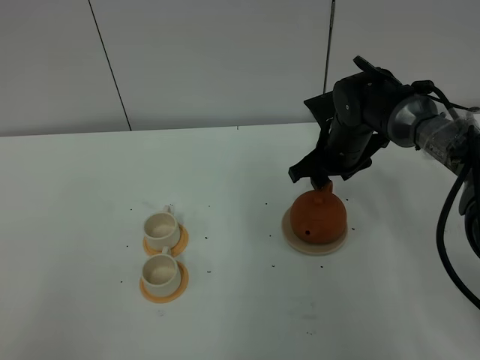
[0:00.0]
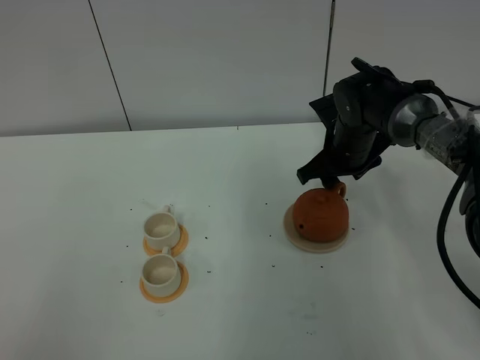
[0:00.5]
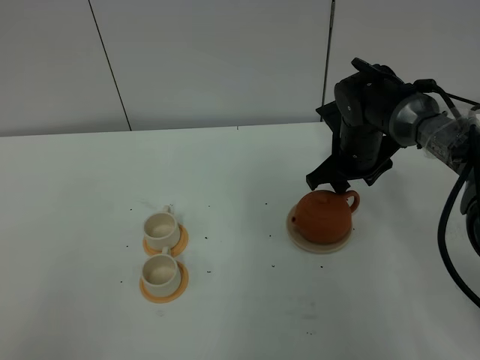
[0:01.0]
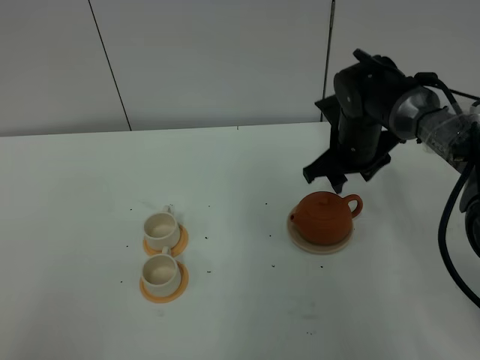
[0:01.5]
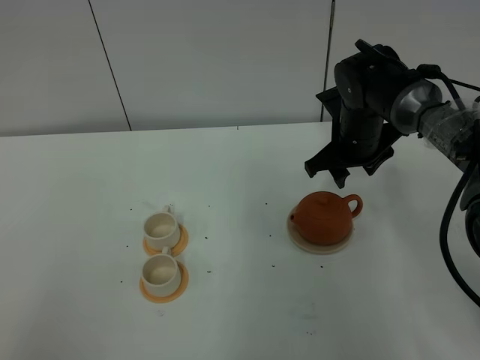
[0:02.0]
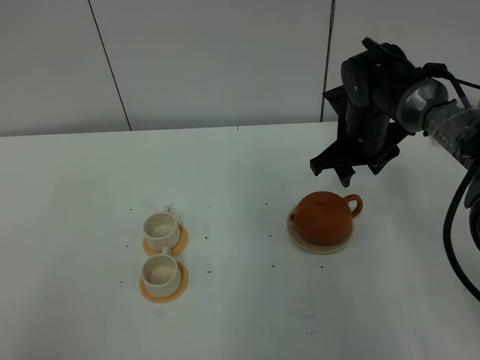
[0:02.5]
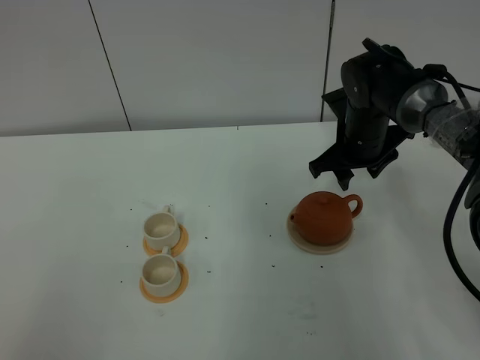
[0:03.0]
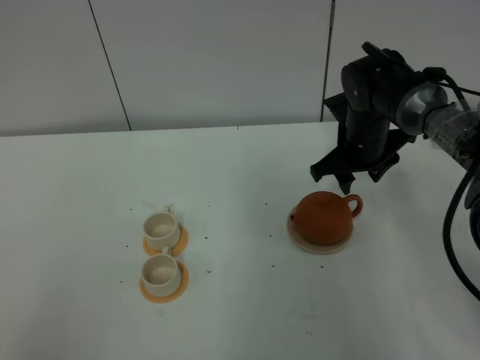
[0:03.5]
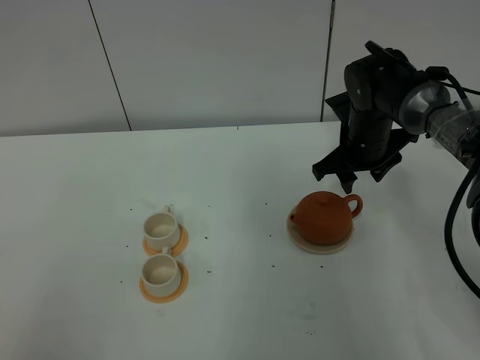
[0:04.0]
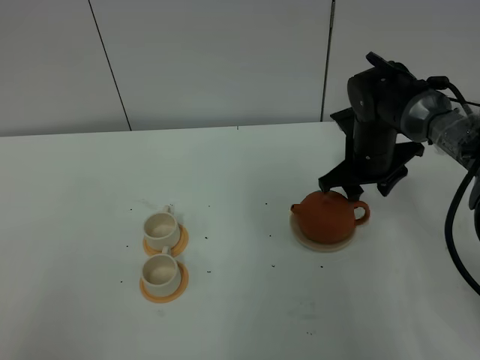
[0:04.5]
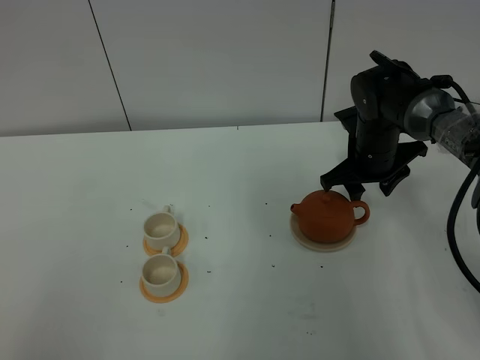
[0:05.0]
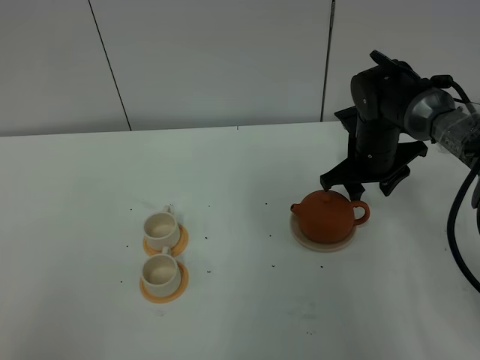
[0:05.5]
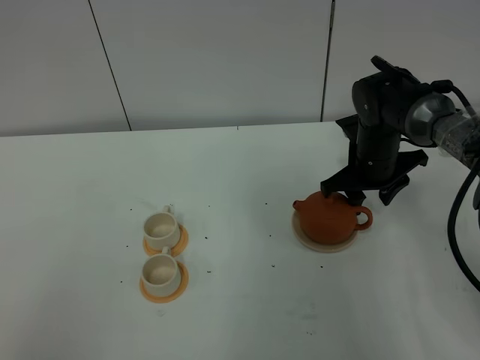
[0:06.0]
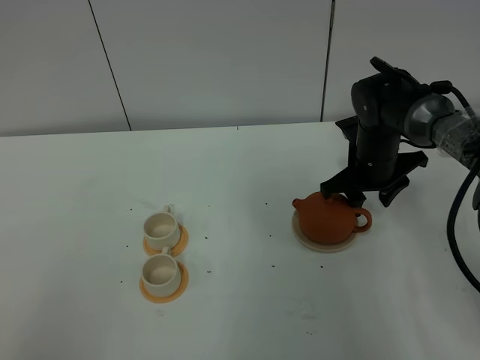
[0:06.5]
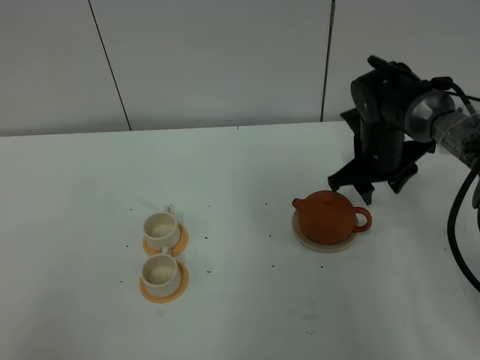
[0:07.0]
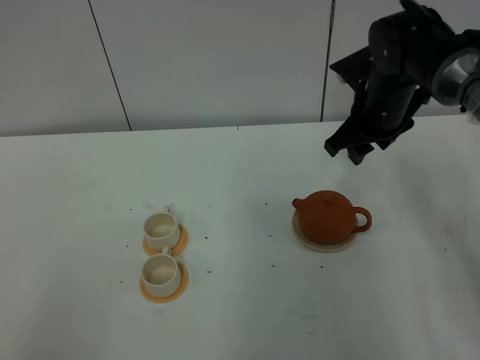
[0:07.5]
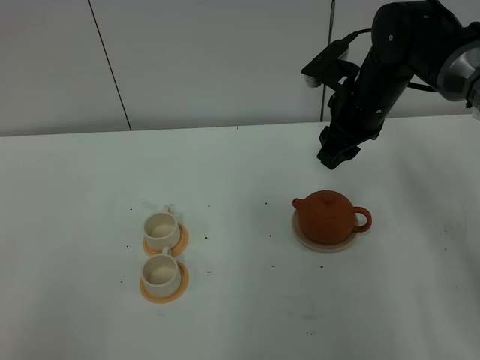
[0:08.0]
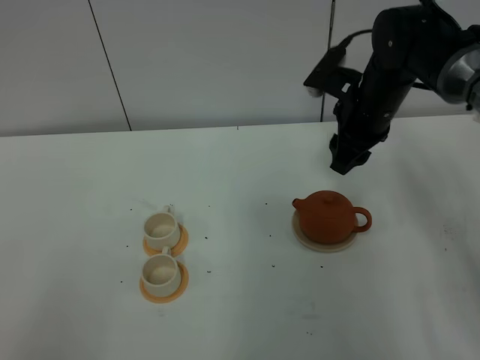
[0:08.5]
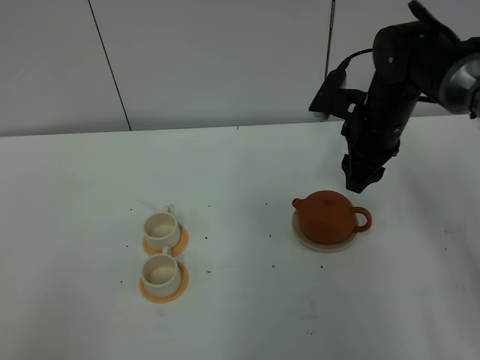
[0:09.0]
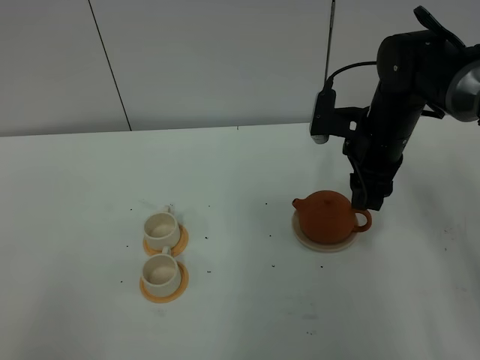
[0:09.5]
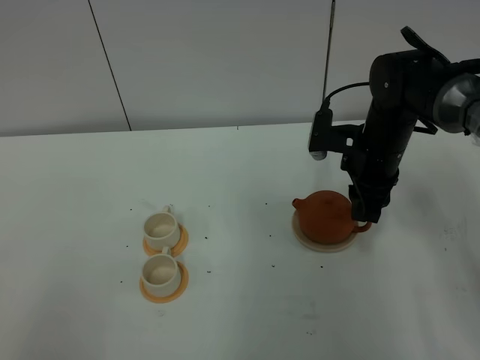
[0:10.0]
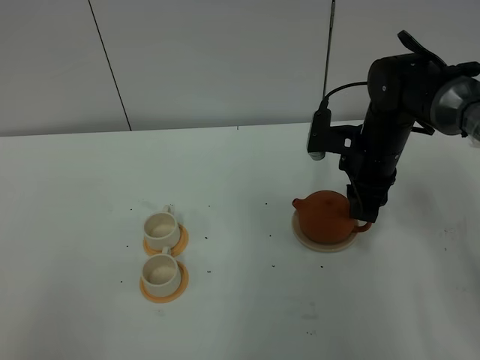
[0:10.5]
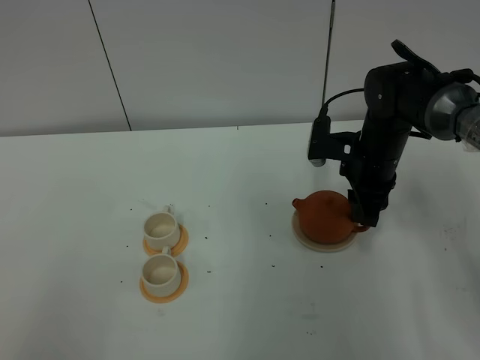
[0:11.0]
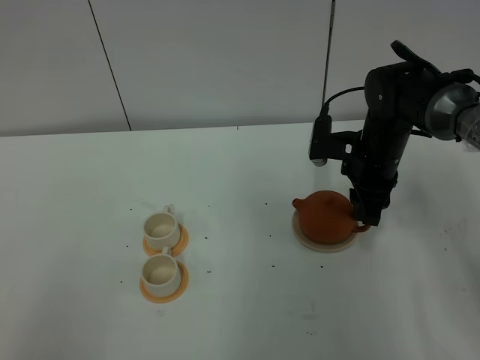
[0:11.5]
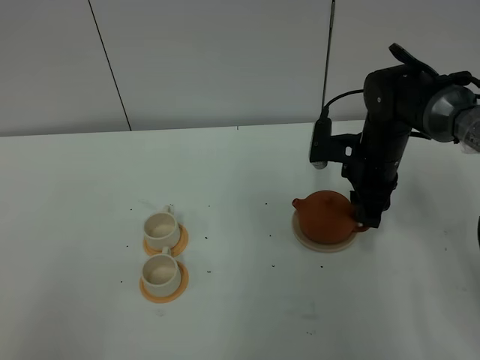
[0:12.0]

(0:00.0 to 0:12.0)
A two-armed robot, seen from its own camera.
Task of the whole recording: grasp the brown teapot and pour the tea into the two white teacups one by one, put the brown teapot back in its original place.
0:00.0 - 0:02.0: The grippers move only a little.
0:02.0 - 0:04.0: The two grippers keep their place.
0:04.0 - 0:06.0: The grippers move only a little.
0:06.0 - 0:08.0: The right gripper shifts some 10 cm upward.
0:08.0 - 0:10.0: The right gripper heads downward, covering some 5 cm.
0:10.0 - 0:12.0: The grippers stay close to where they were, moving slightly.

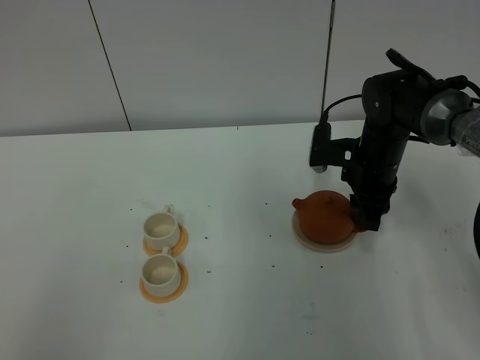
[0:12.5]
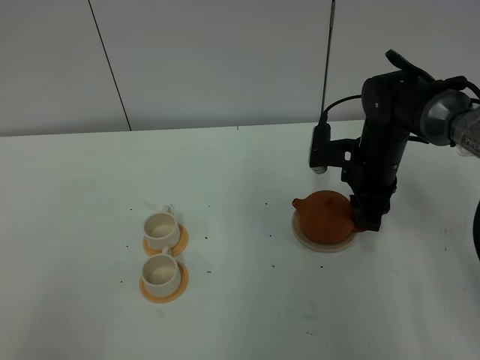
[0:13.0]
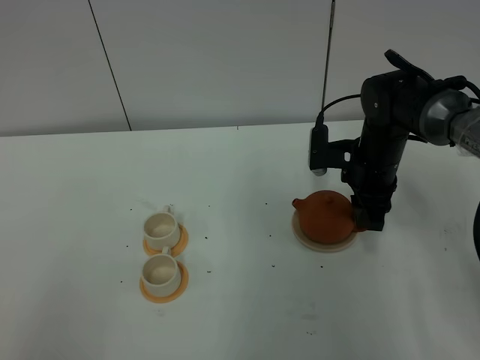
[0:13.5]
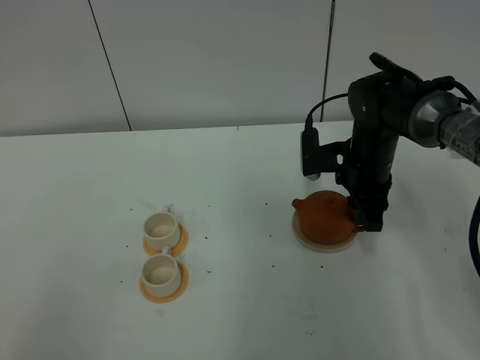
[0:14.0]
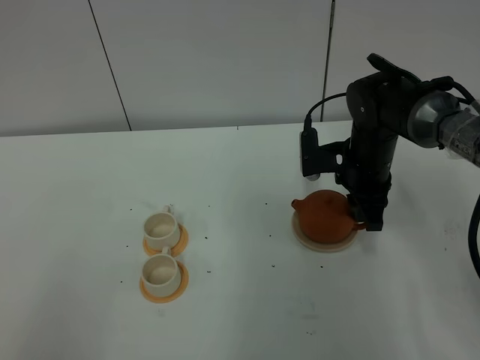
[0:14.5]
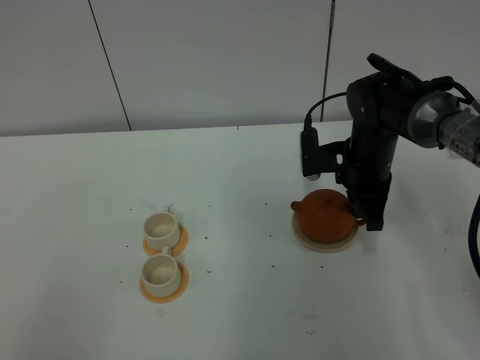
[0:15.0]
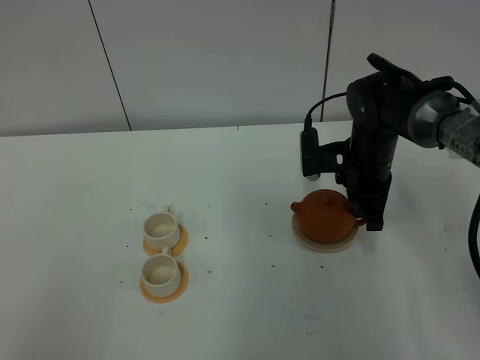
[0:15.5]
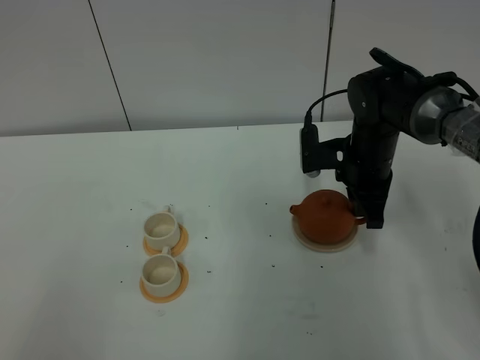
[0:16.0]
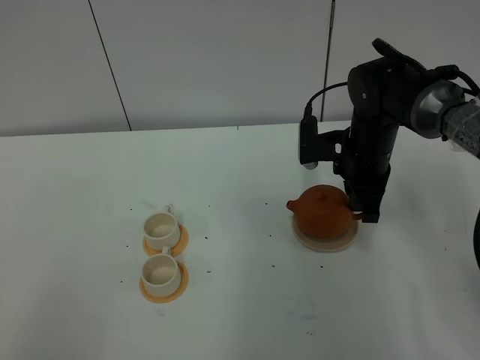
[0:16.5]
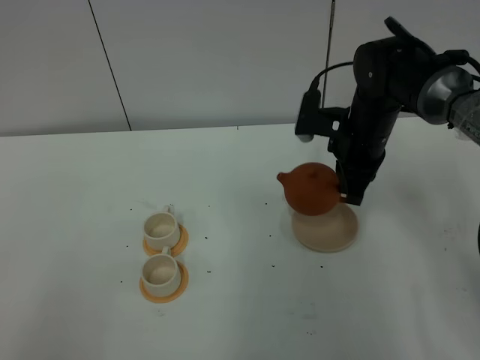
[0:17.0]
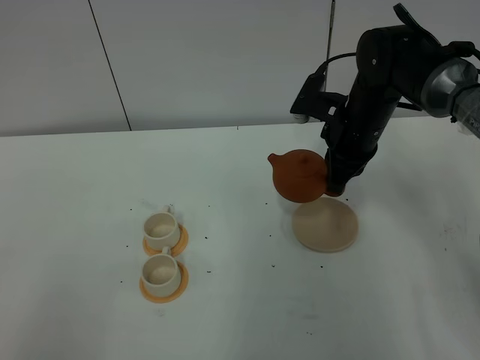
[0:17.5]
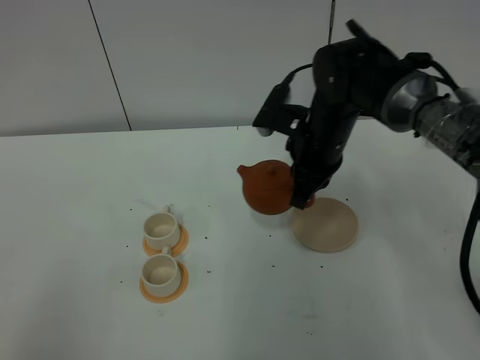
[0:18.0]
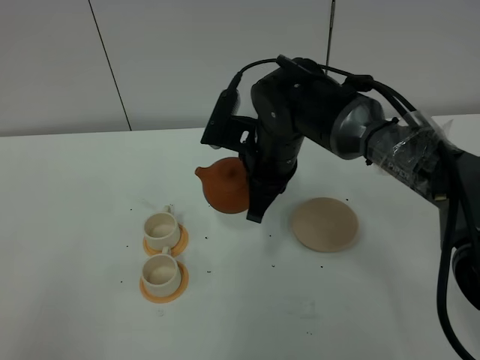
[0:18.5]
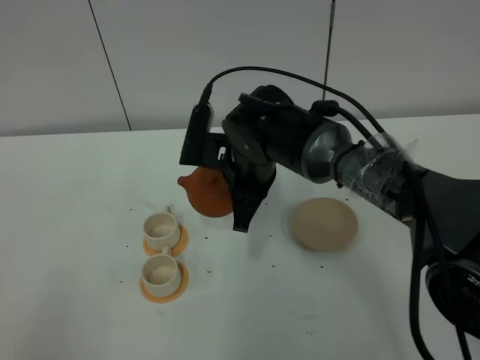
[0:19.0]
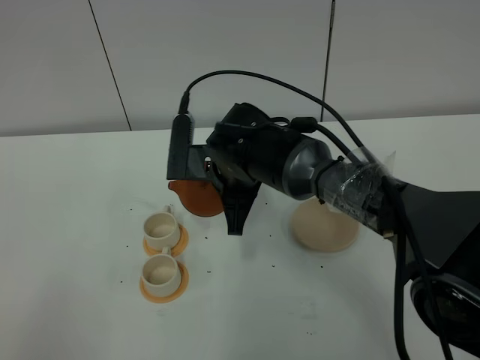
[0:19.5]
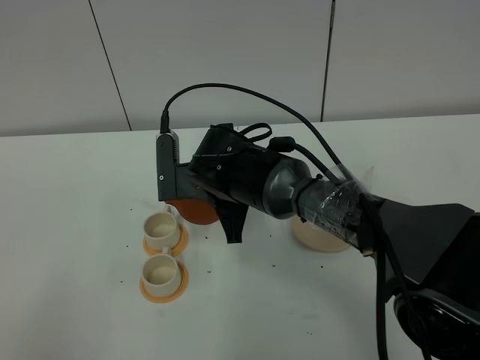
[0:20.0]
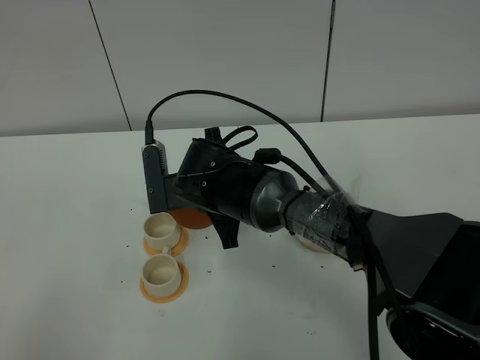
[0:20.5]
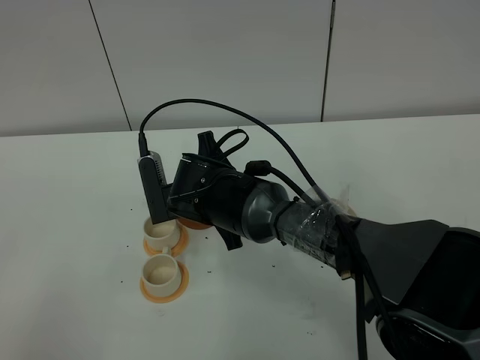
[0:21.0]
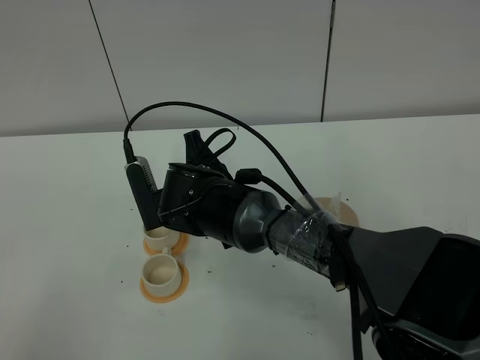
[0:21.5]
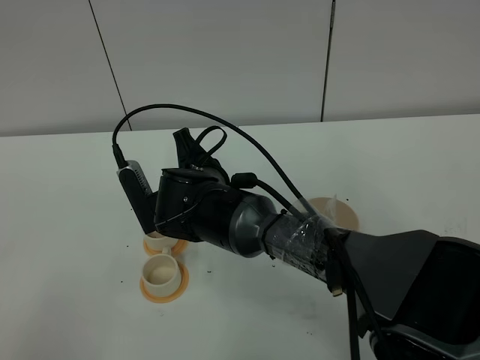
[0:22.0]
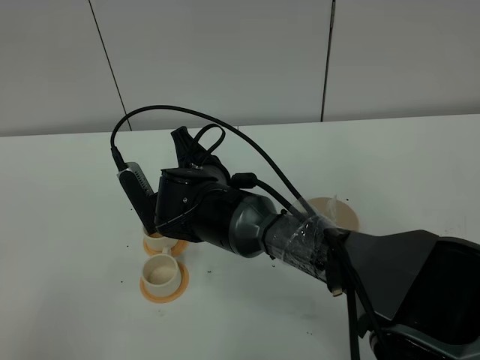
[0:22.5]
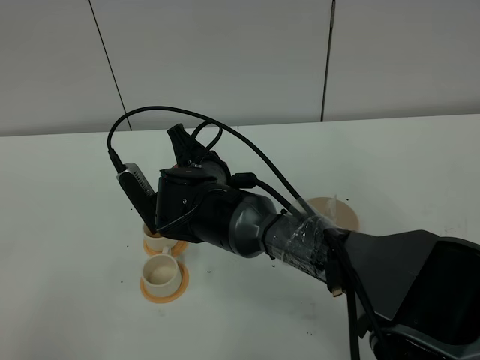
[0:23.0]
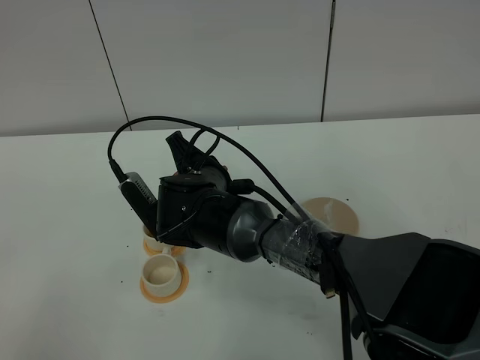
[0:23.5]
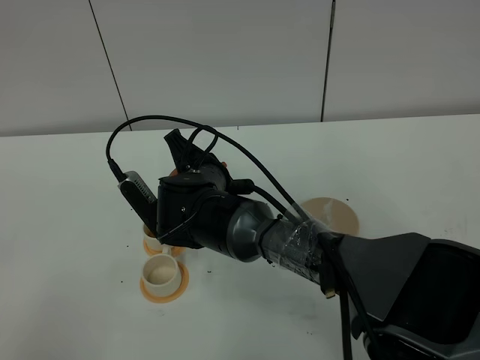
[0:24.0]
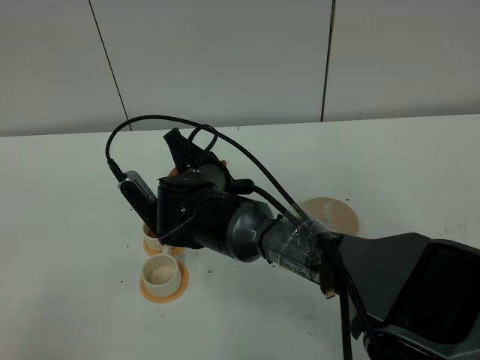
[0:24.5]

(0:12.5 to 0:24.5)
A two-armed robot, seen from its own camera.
Task of the whole recording: grasp the brown teapot and pour the tea into the two white teacups one by one, put the brown teapot back in its original place.
Step, 0:12.5 - 0:17.0: Pick up the teapot with the right gripper.
0:12.5 - 0:14.5: There are only small adjustments of the grippers.
0:14.5 - 0:16.5: The right gripper closes its fingers.
0:16.5 - 0:18.5: The right gripper moves to the left, about 10 cm.
0:18.5 - 0:20.5: The right gripper goes roughly 5 cm to the left.
0:22.5 - 0:24.5: The grippers move only a little.

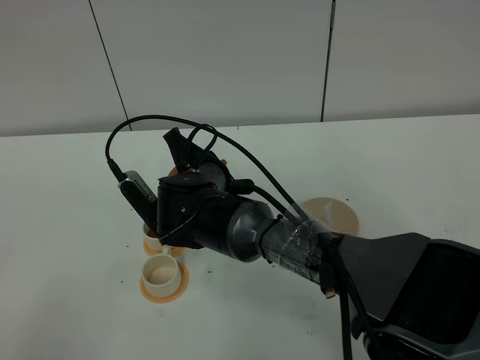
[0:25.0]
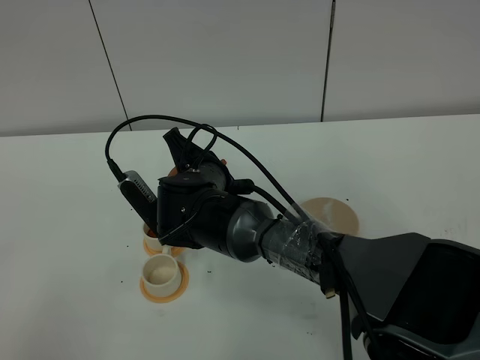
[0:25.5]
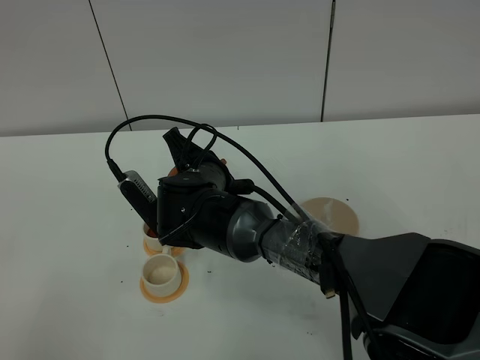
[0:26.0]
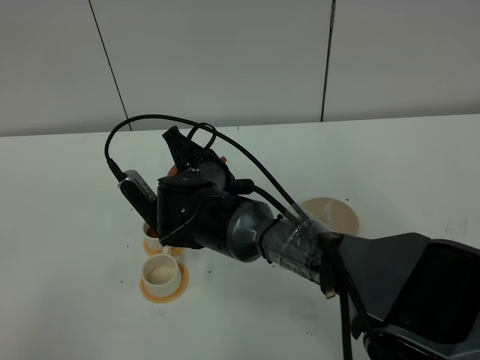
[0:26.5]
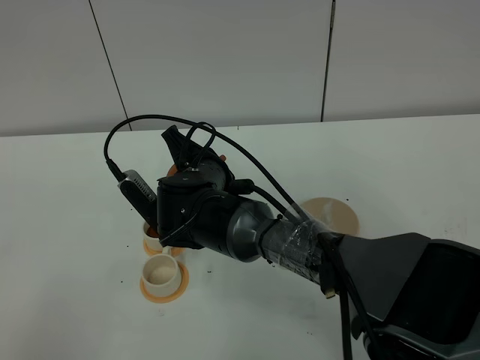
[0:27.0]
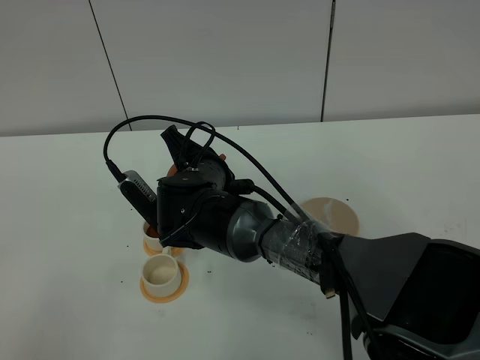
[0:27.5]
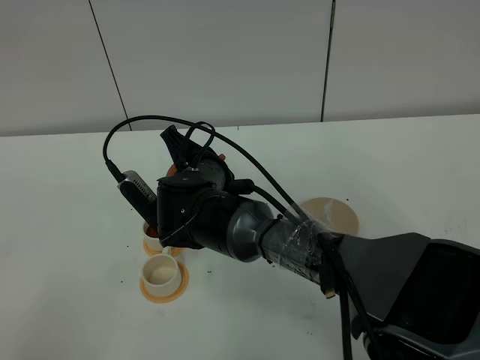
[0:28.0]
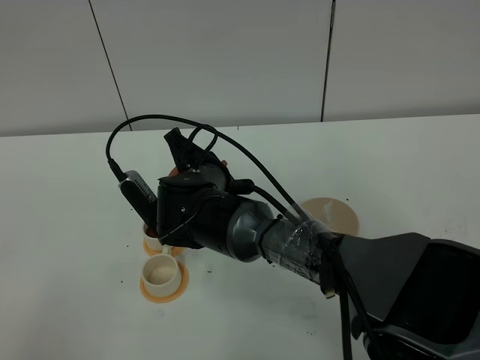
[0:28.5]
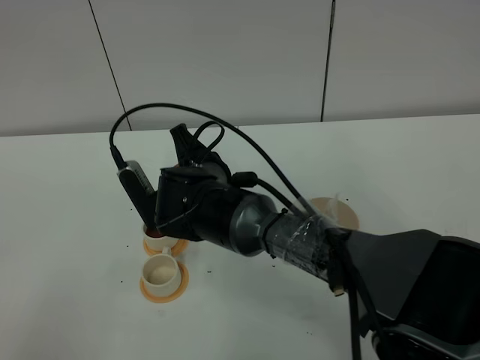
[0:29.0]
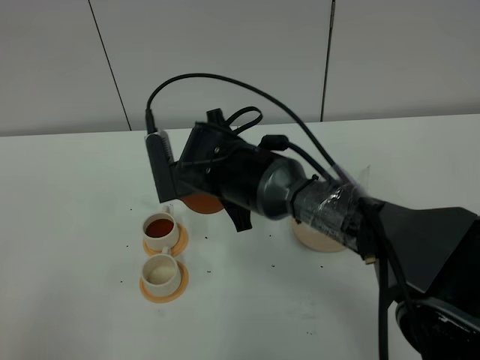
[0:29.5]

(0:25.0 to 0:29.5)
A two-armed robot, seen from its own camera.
Task of the whole recording: grasp the brown teapot and pour the tea into the two white teacups one by one, put the brown teapot back in its original place.
0:25.0 - 0:27.0: Neither gripper changes place.
